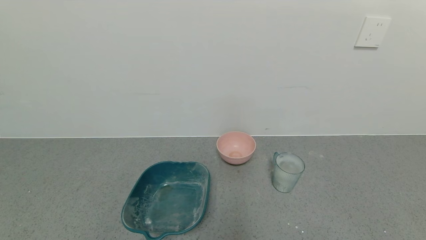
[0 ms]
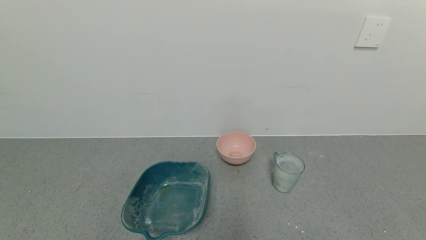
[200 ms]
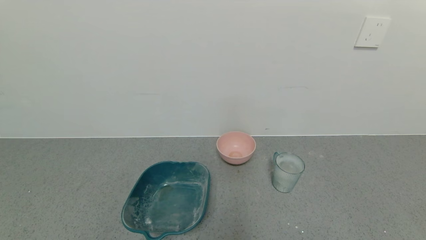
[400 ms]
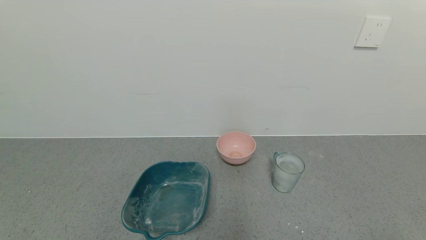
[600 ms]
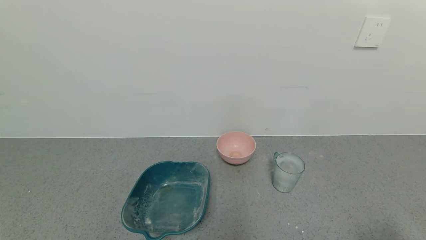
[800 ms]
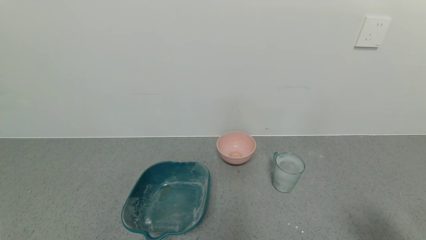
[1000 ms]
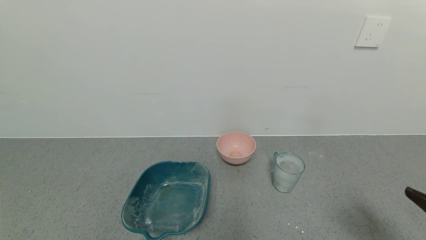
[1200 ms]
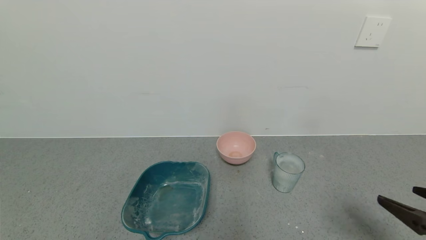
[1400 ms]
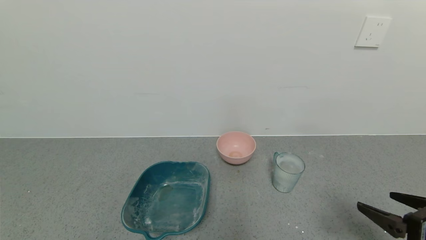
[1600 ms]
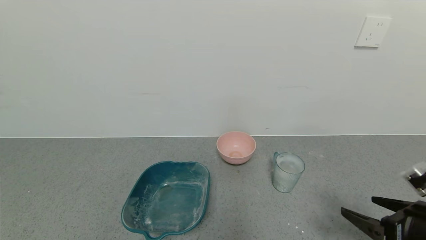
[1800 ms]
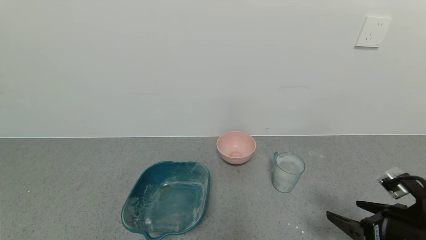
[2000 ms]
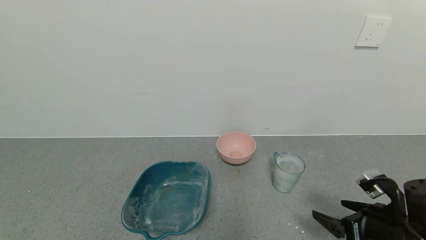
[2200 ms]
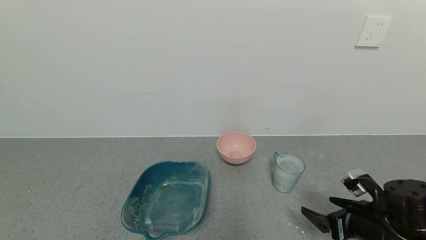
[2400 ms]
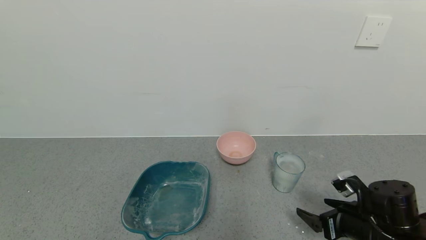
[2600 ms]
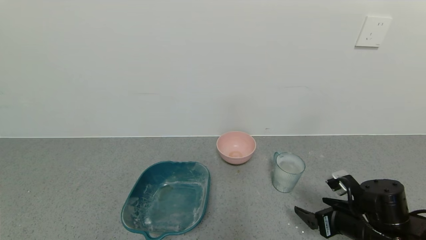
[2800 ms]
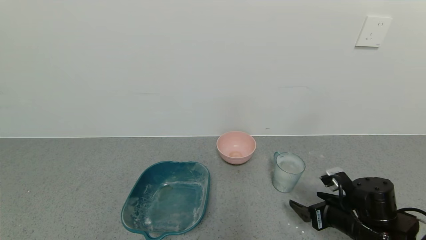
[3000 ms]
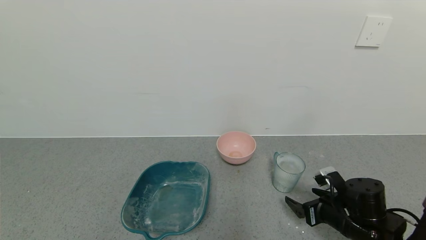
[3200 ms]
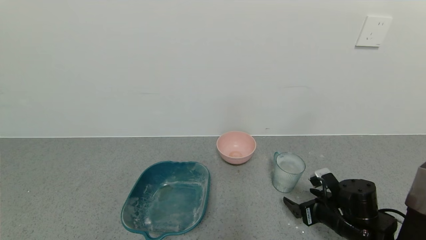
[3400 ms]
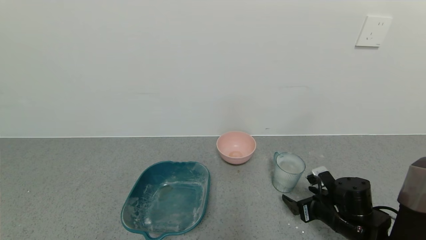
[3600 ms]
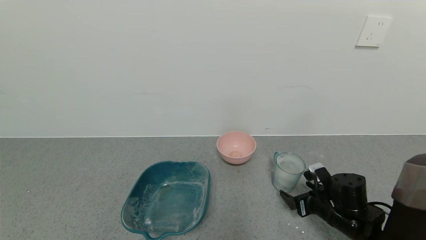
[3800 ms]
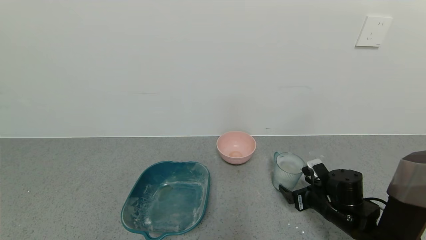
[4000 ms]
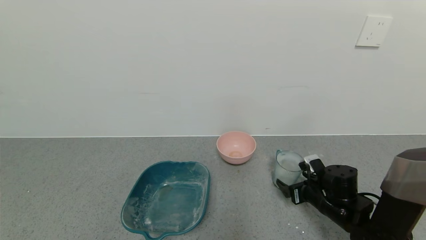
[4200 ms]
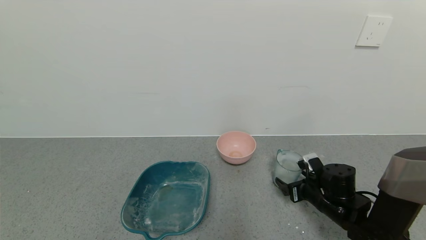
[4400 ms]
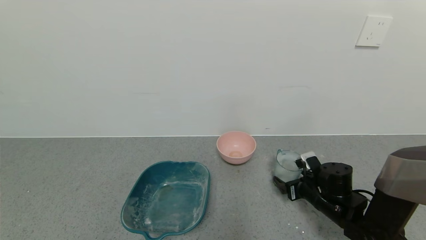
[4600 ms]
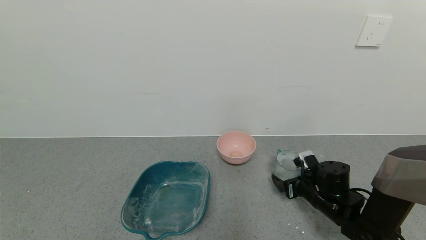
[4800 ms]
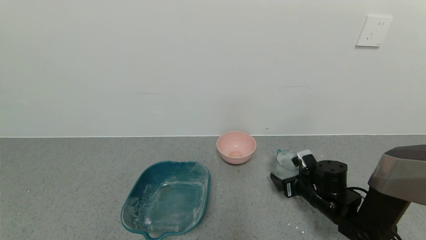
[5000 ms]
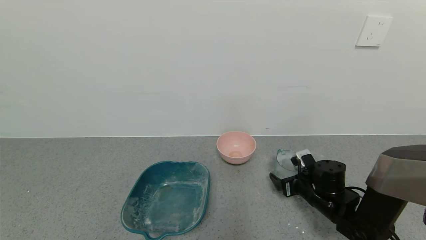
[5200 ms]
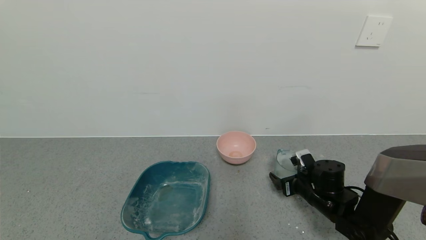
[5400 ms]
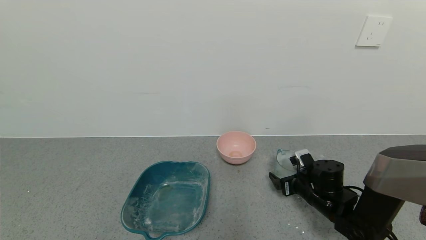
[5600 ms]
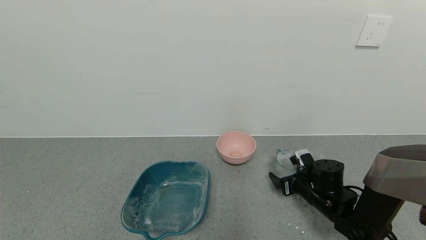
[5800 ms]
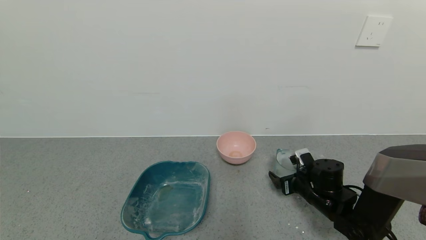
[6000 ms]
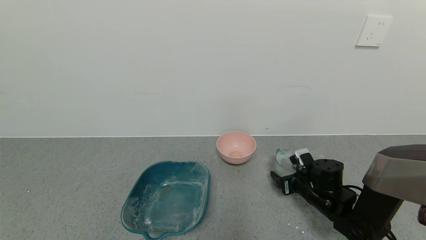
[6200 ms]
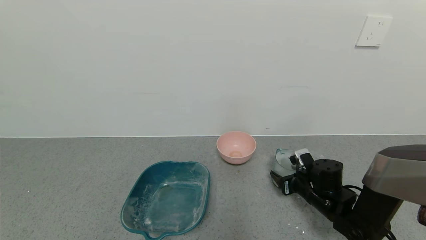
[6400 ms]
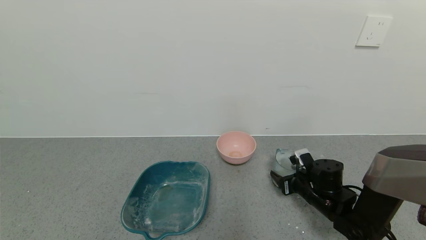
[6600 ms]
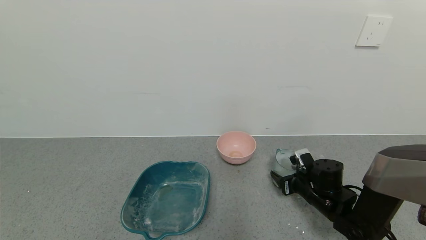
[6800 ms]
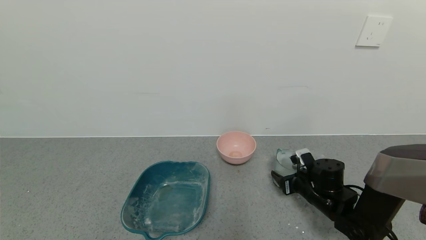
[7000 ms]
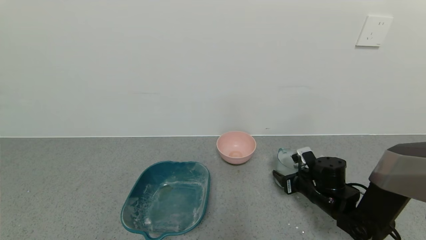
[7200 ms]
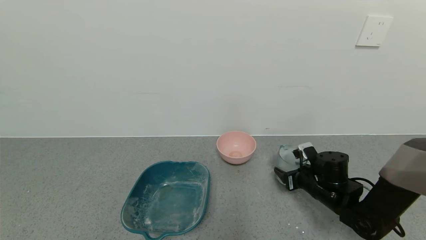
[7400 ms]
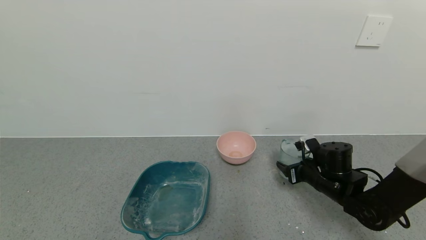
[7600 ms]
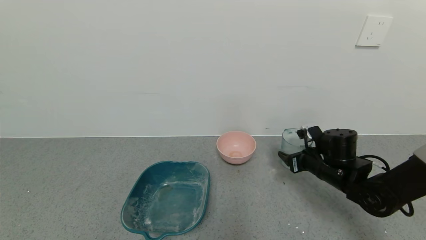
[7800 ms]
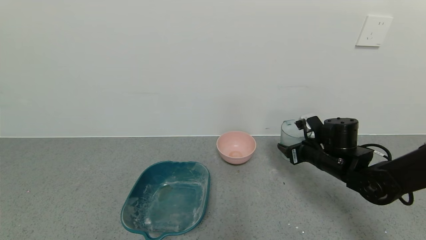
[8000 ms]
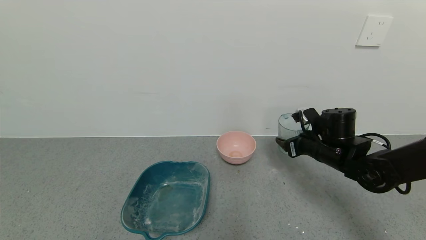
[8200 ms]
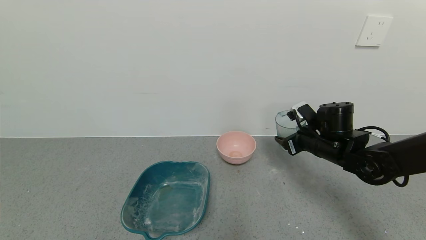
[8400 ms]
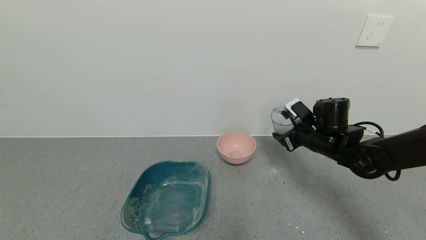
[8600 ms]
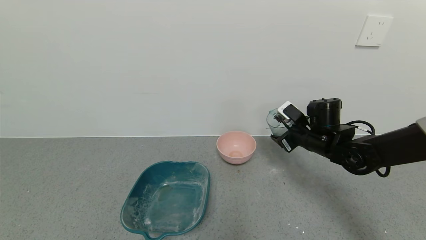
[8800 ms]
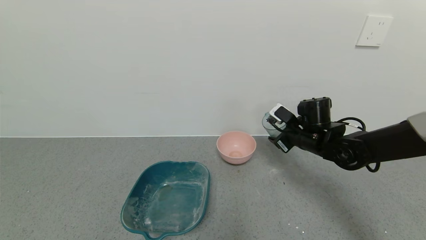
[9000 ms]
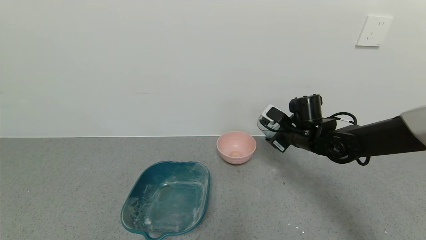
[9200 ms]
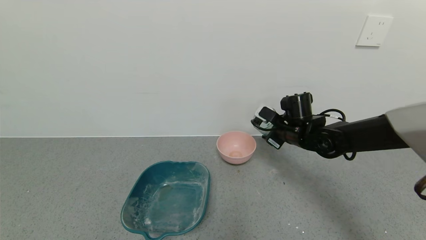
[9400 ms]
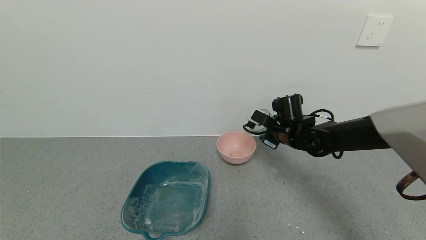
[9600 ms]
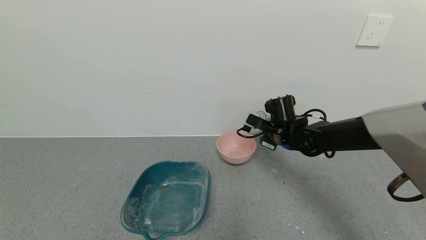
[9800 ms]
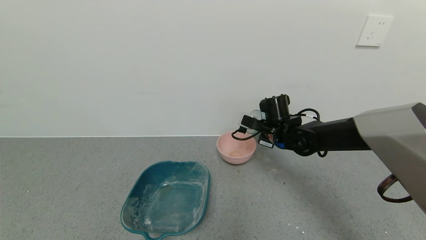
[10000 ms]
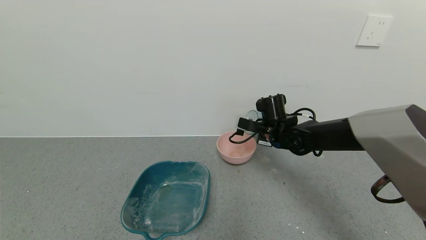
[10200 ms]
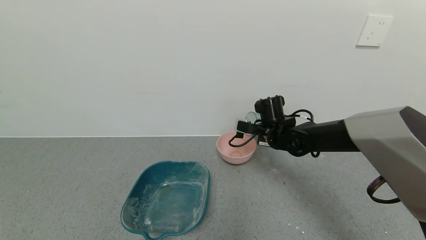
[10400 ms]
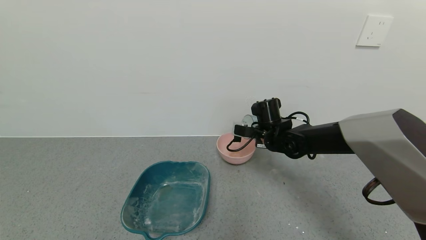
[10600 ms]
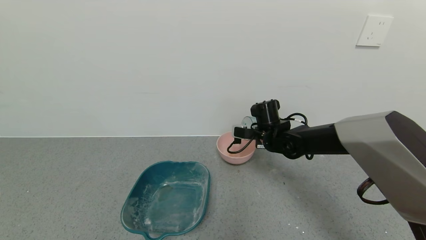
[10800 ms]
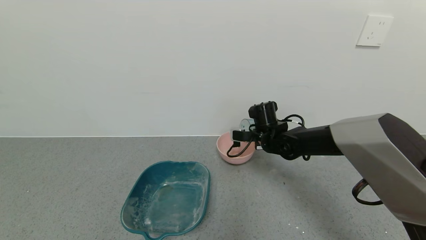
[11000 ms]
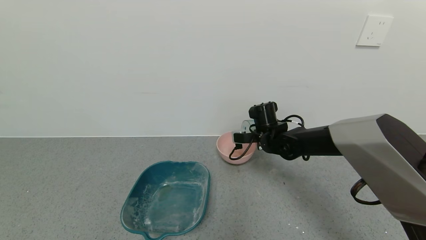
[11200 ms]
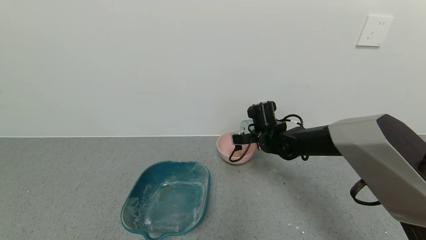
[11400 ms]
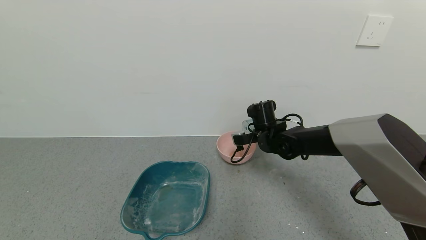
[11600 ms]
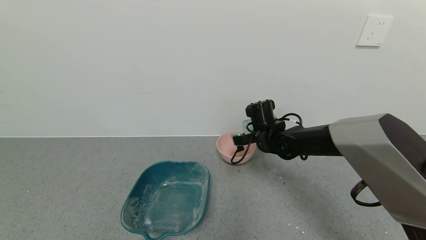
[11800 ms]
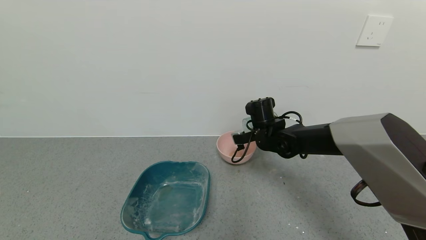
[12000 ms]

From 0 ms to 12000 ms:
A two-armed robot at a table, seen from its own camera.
Task of the whole recording: use a gripper to pick up the cup and pour the powder into a bowl or tray.
Step, from 0 ms to 6400 ms: Grasp the glass of powder with the right gripper.
From 0 ms to 1600 ms: The right gripper heads forward and upward, covering some 15 cm.
From 1600 ms to 3000 ms: The right gripper travels downward, forward and to the left by roughly 15 cm.
From 3000 ms to 4400 ms: The right gripper travels forward by approximately 5 cm.
From 4400 ms to 6000 ms: The grippers make only small movements.
From 6000 ms to 7600 ms: The right gripper goes some 5 cm upward, and closes its fingers.
From 7600 ms to 9000 ms: The right gripper moves upward and forward, roughly 10 cm.
From 9000 ms to 10400 ms: The right gripper travels to the left by approximately 10 cm.

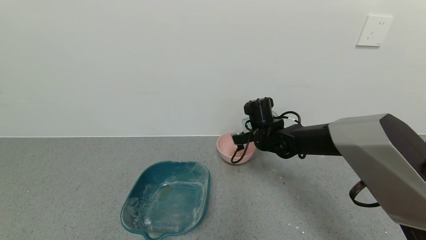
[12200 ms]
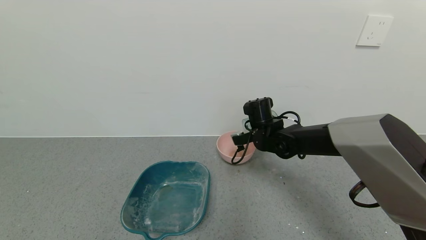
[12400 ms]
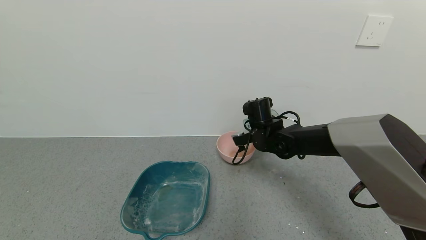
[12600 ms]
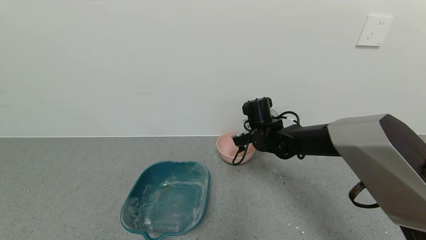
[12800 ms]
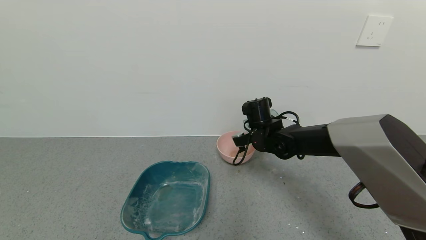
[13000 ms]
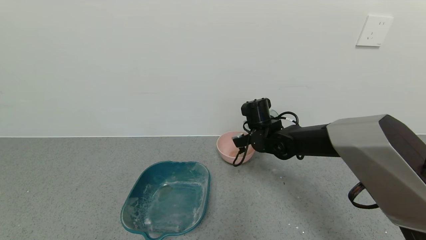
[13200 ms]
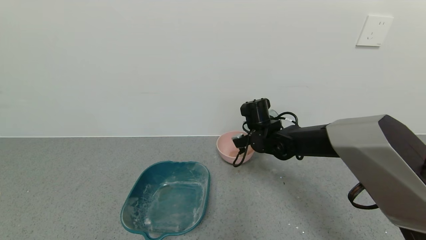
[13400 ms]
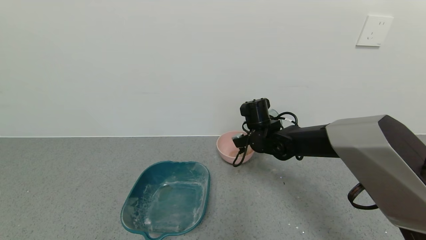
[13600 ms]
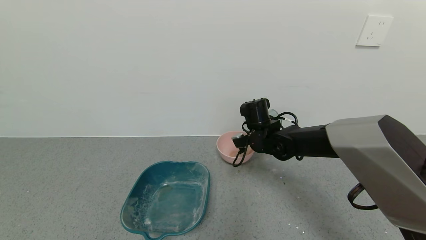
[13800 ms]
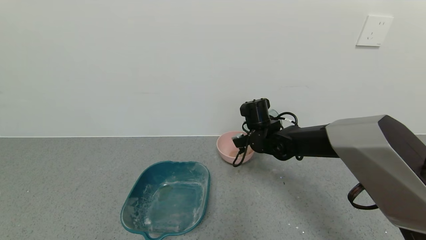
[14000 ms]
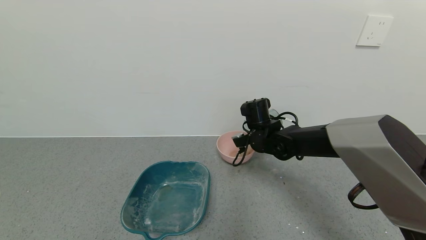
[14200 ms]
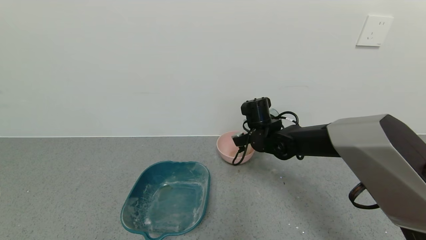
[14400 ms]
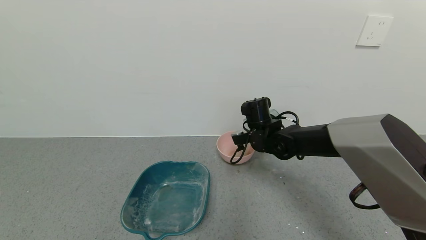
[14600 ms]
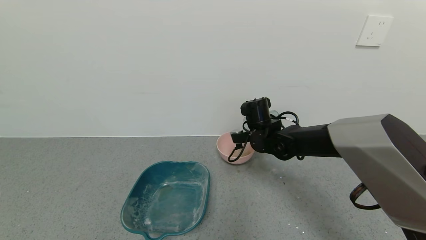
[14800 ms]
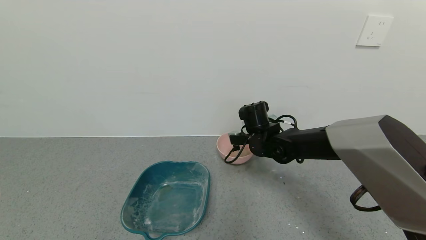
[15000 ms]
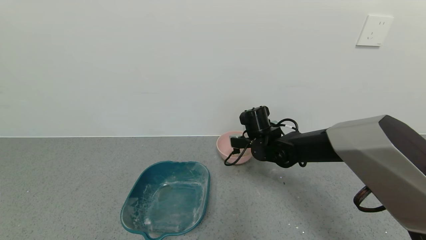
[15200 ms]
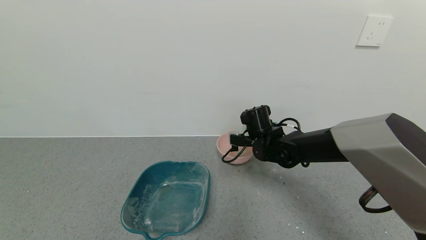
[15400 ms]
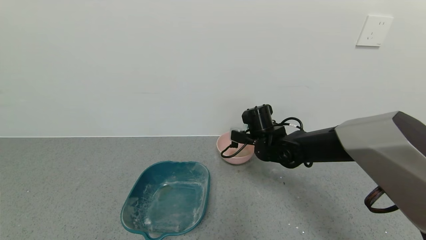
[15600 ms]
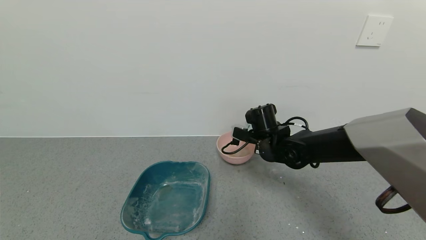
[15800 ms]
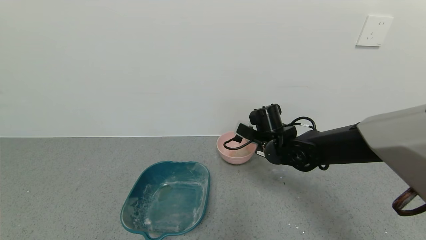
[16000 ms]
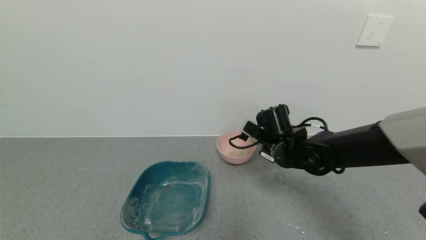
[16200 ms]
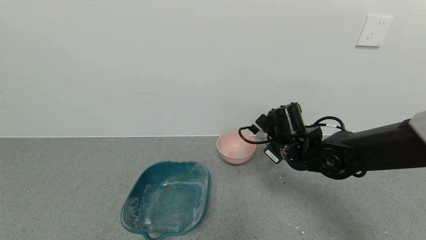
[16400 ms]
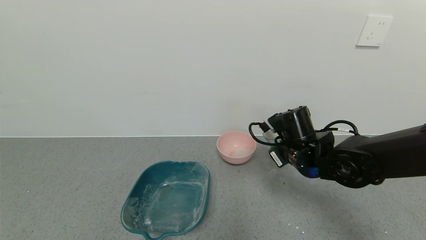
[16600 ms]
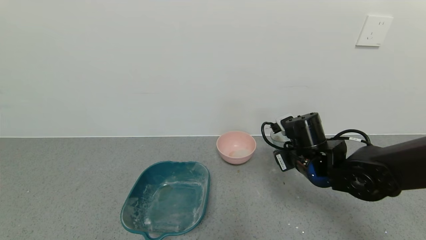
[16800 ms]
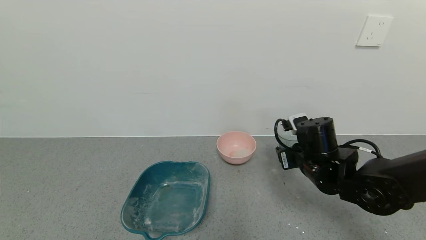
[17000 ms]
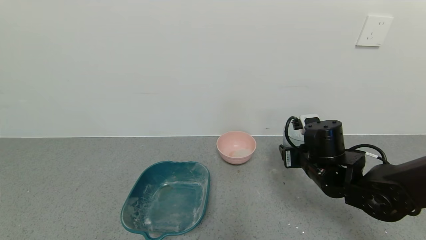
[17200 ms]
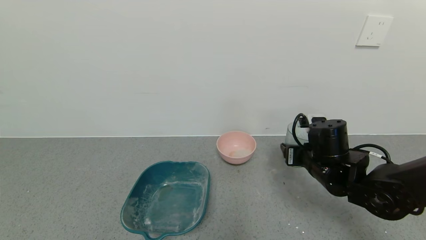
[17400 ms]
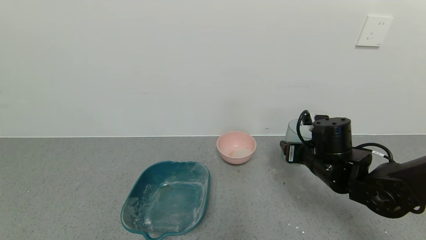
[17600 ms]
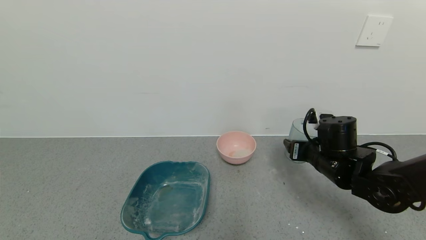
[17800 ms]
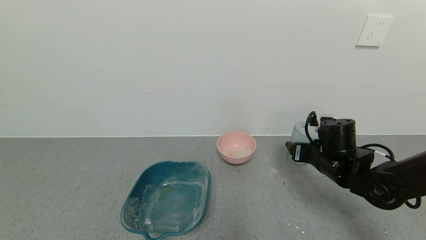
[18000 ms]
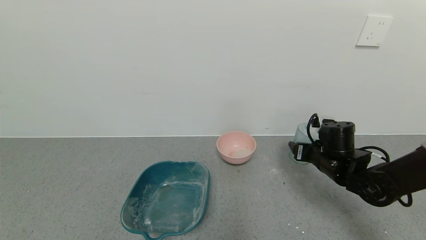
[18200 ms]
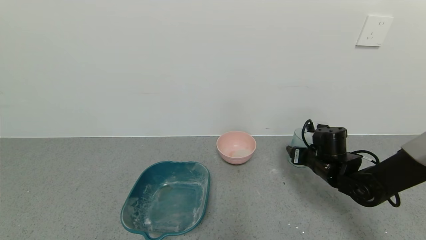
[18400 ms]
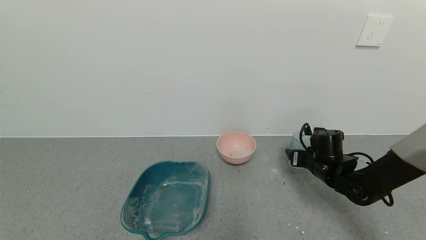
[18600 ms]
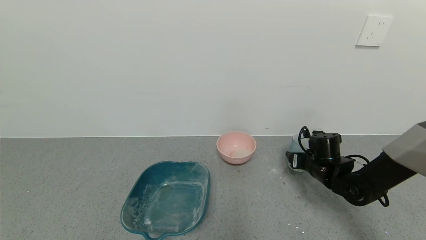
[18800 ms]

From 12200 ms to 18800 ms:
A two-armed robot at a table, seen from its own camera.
Task of the whole recording: use a gripper to pick up the cup and pour the powder into a bowl or tray.
From 12200 ms to 13800 ms: The grippers stay close to where they were, moving slightly.
From 15400 ms to 17200 ms: The right gripper moves backward and to the right, about 15 cm.
From 17200 ms to 18800 ms: The right gripper shifts roughly 10 cm downward, forward and to the right.
